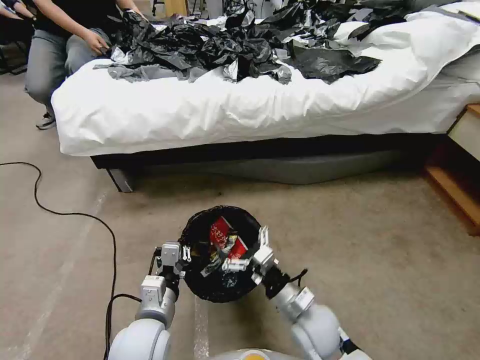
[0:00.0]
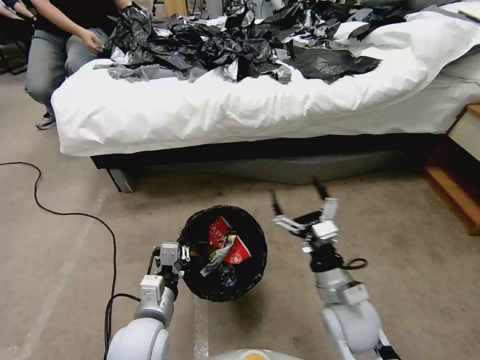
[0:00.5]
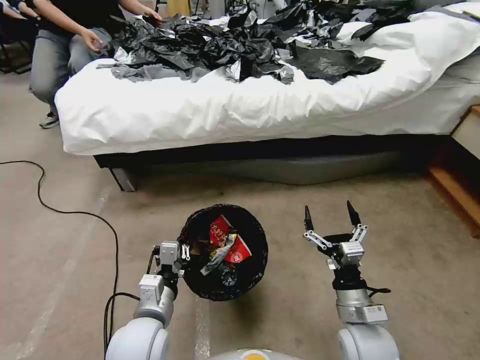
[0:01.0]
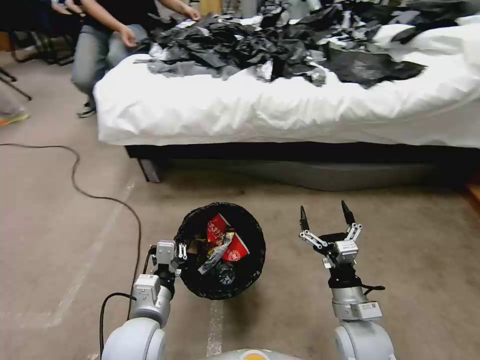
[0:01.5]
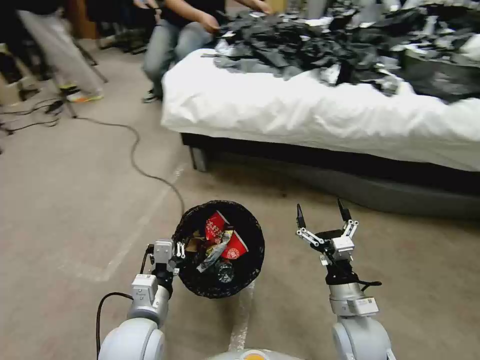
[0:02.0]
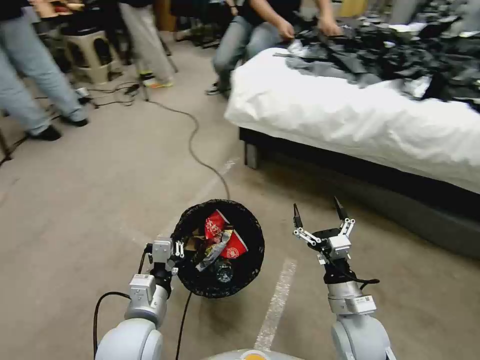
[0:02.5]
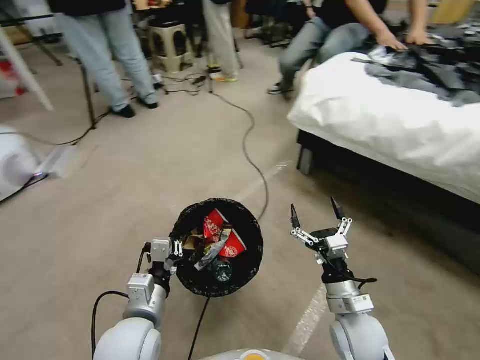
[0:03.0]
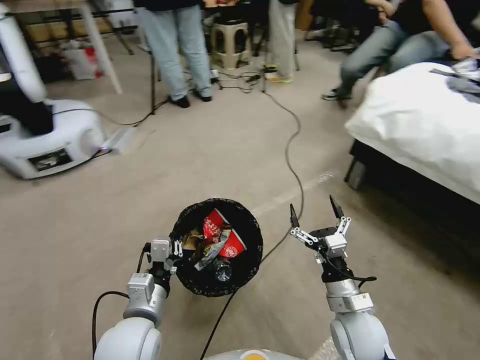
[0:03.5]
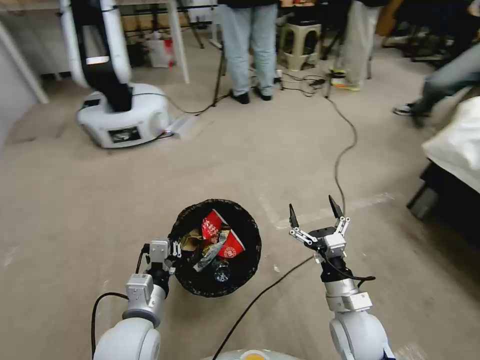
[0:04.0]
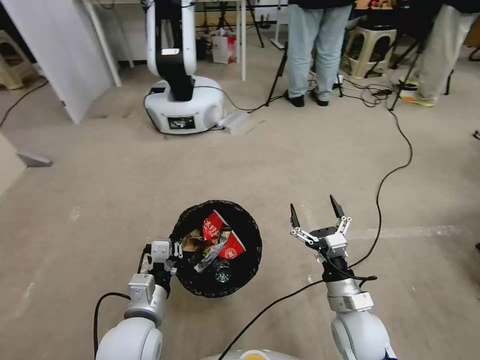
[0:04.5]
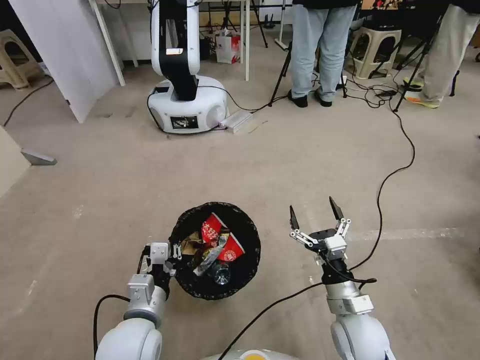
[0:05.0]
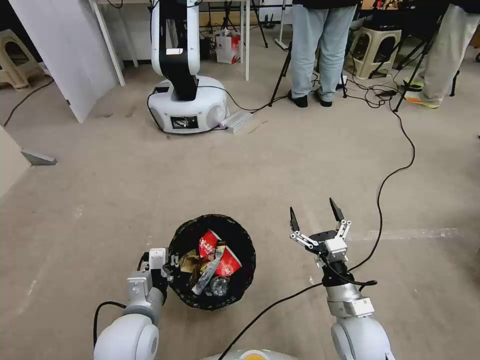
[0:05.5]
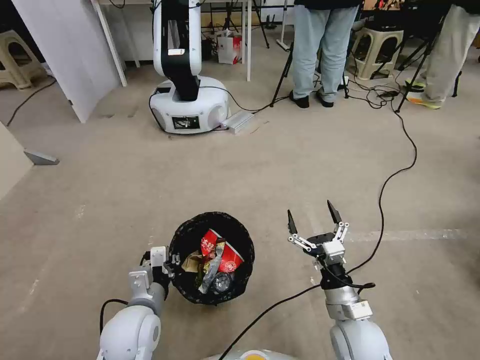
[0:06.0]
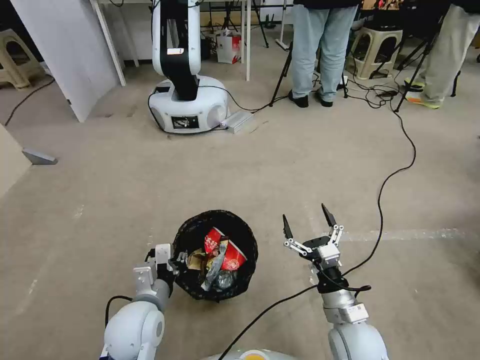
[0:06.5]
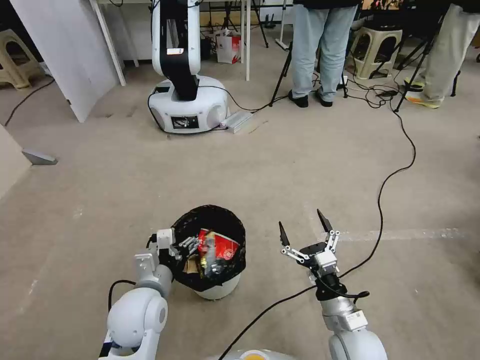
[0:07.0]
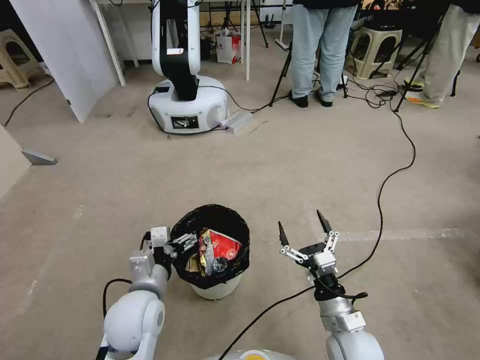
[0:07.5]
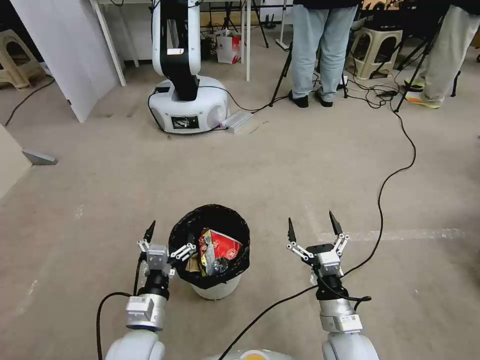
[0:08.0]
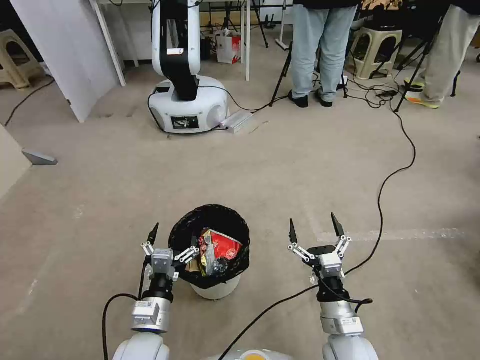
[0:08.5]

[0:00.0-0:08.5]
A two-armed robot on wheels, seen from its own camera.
Task of the whole recording: Pick up the trash bin, then pick up the garbage from the floor and place it into the trash bin.
0:00.0 to 0:02.0: The right gripper moves to the right, approximately 10 cm.
0:06.5 to 0:08.5: The left gripper moves roughly 5 cm, and opens up.

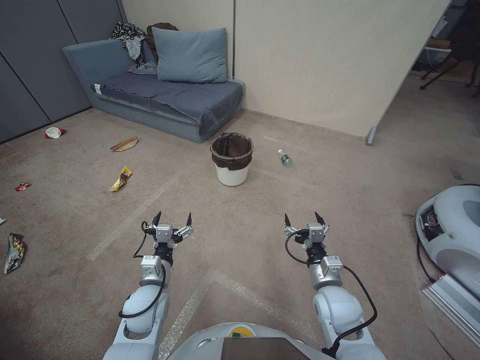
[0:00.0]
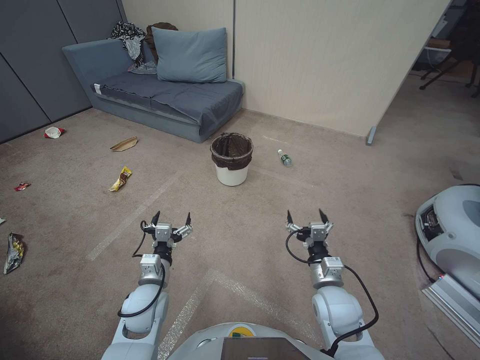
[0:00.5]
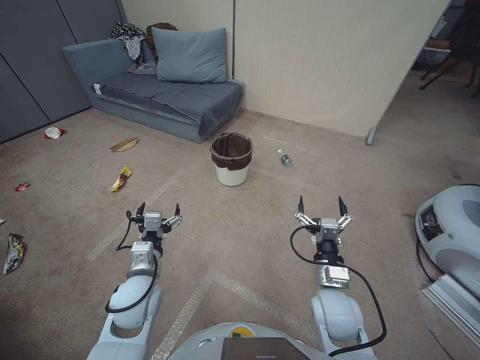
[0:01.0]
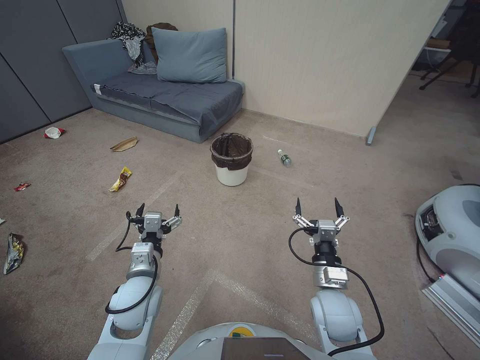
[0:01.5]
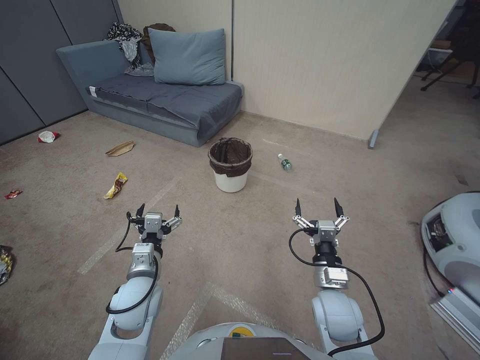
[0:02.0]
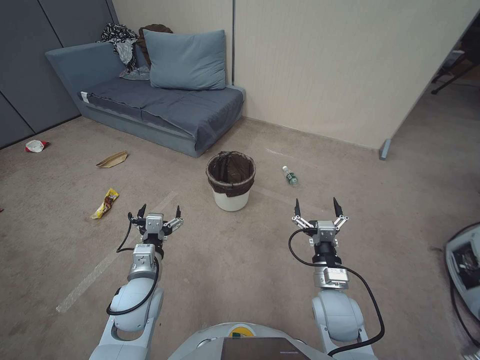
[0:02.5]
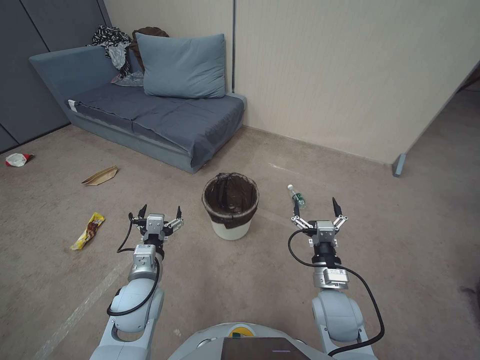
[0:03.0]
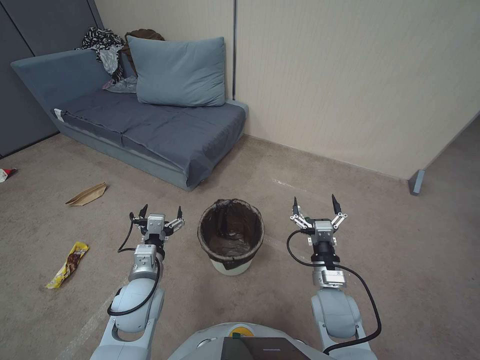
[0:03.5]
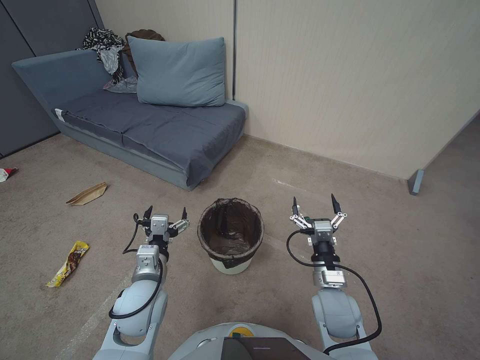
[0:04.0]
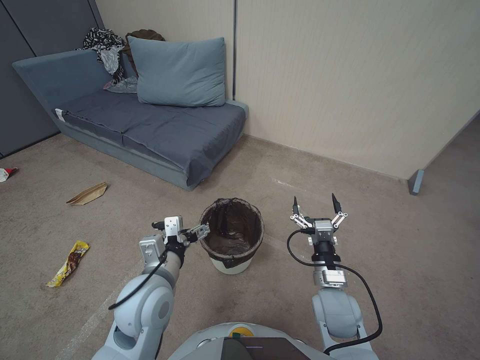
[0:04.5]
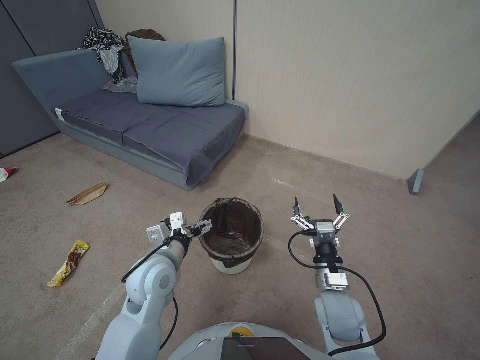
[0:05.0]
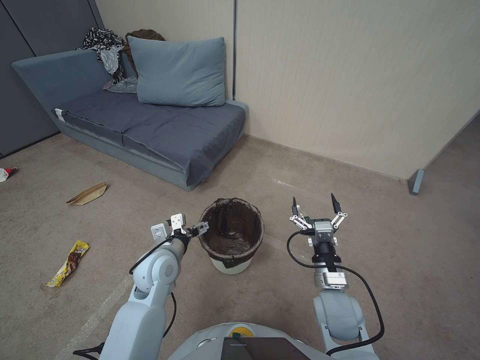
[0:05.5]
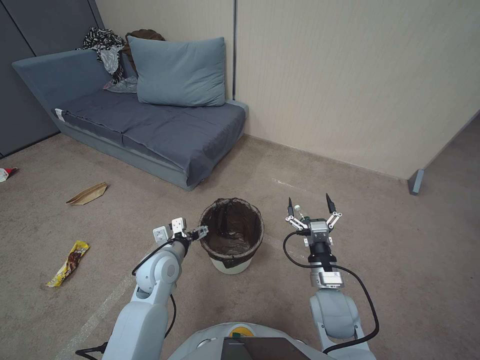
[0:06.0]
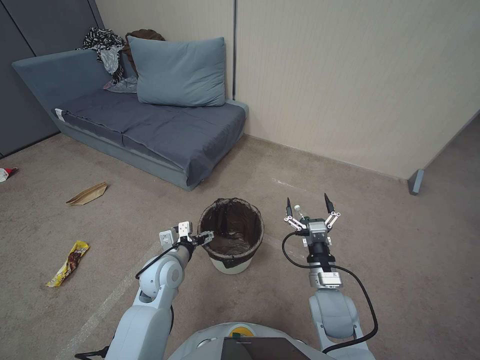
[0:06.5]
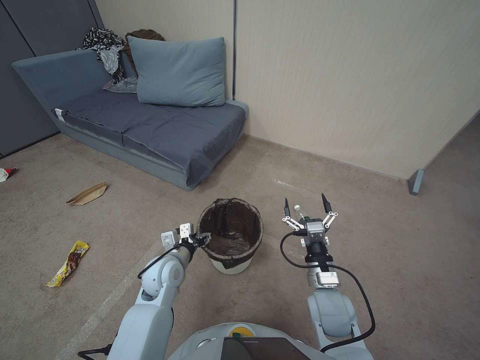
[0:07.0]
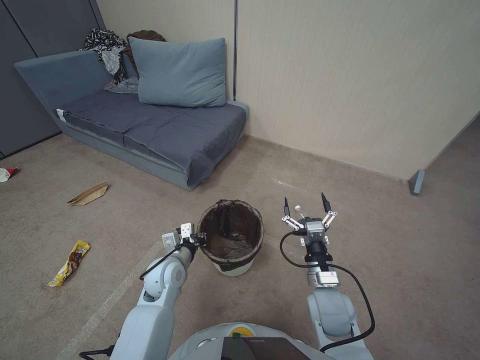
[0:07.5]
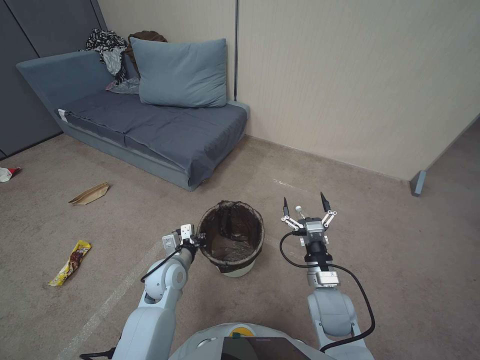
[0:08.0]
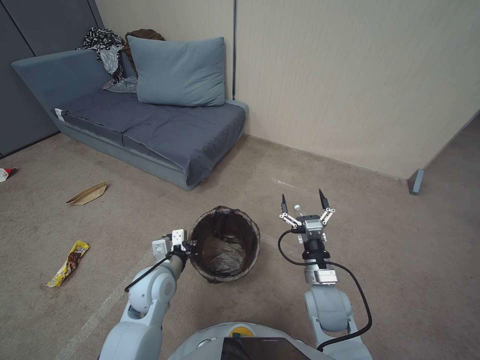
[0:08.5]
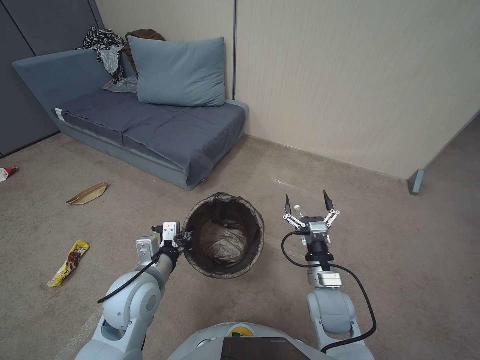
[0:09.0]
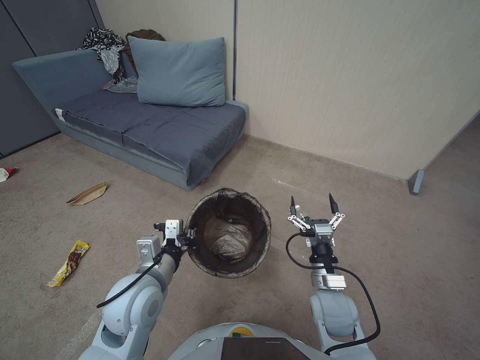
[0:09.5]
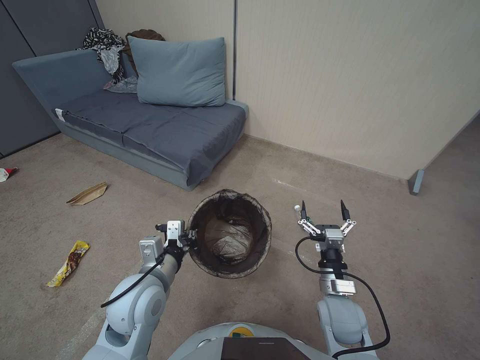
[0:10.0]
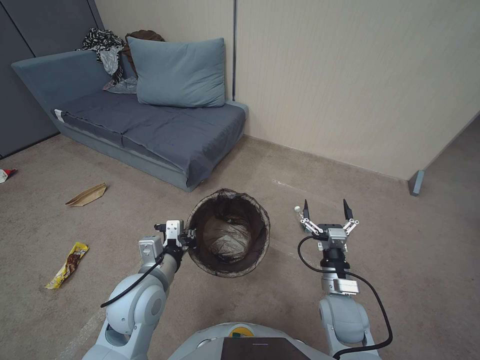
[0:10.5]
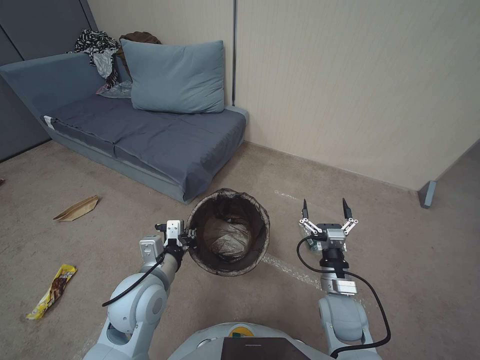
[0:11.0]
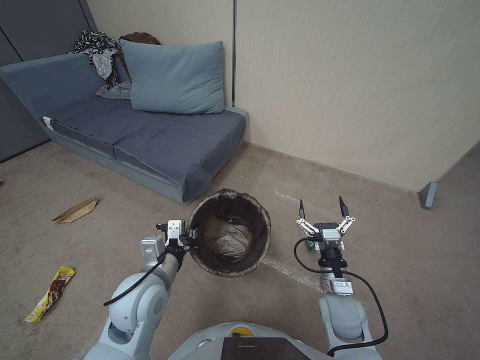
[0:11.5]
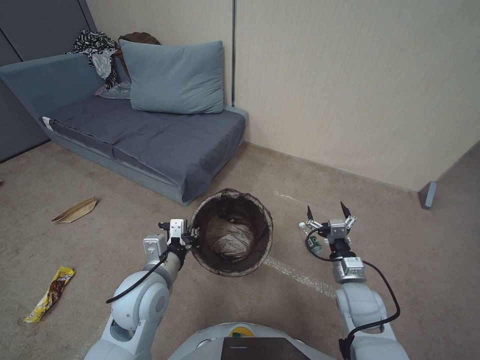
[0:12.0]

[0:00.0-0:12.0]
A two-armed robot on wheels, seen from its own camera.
Task of the whole recording: Pick up the trash bin, then pick up the garbage from the floor and place it into the trash bin.
0:04.0 to 0:06.0: The left gripper goes roughly 10 cm forward.
0:06.0 to 0:08.0: The left gripper closes up.
0:08.0 to 0:10.0: The left gripper shifts about 15 cm upward and backward.
0:10.0 to 0:12.0: The right gripper shifts roughly 5 cm to the right.

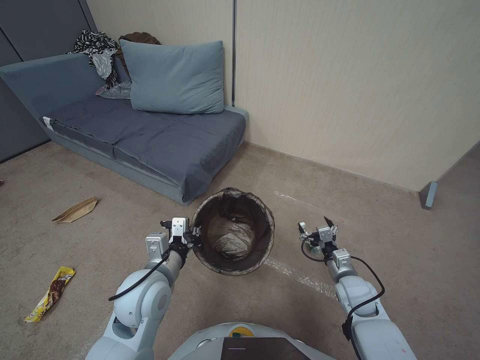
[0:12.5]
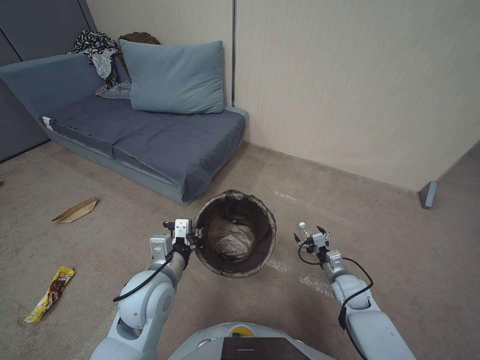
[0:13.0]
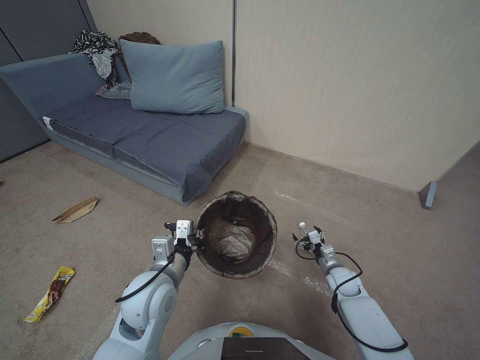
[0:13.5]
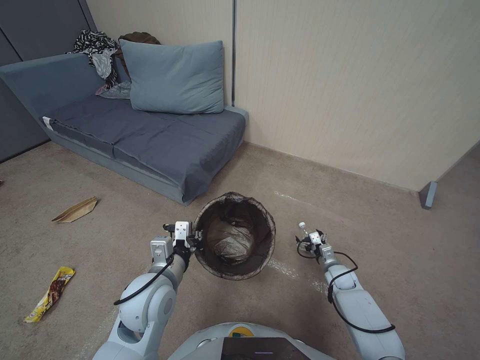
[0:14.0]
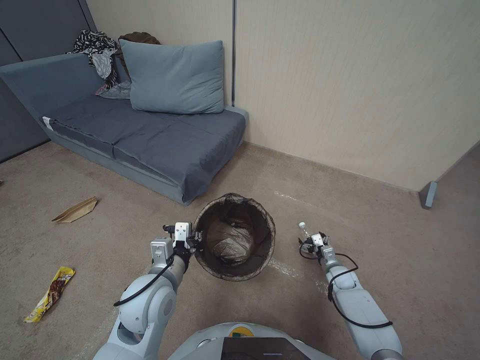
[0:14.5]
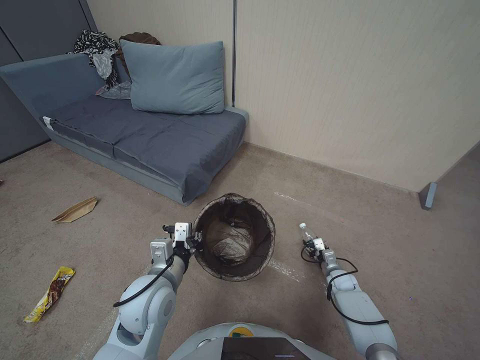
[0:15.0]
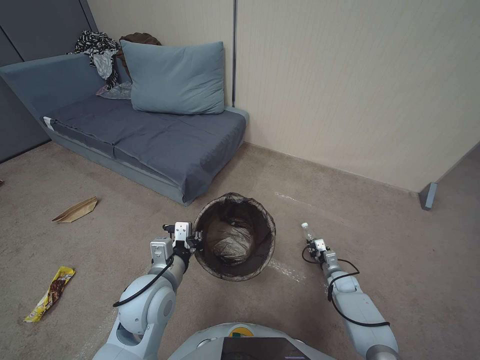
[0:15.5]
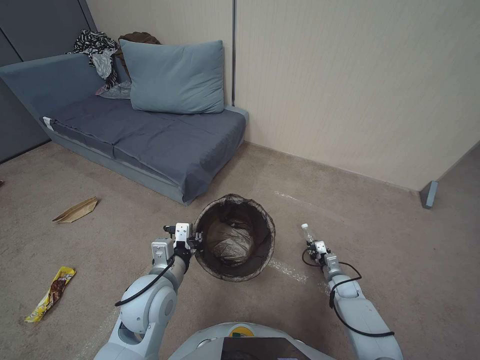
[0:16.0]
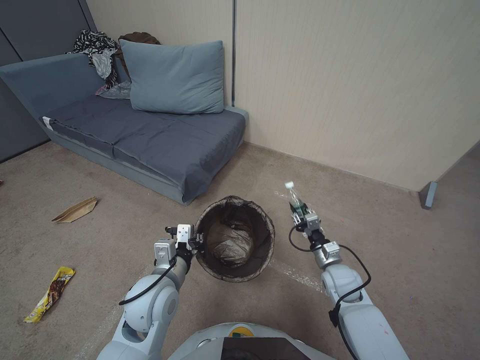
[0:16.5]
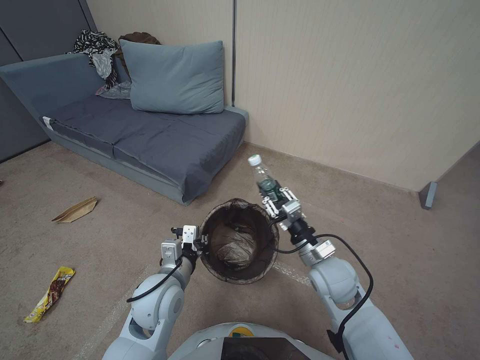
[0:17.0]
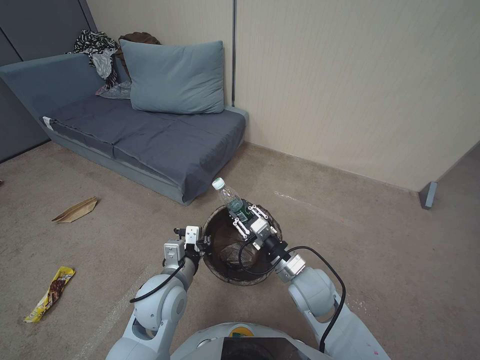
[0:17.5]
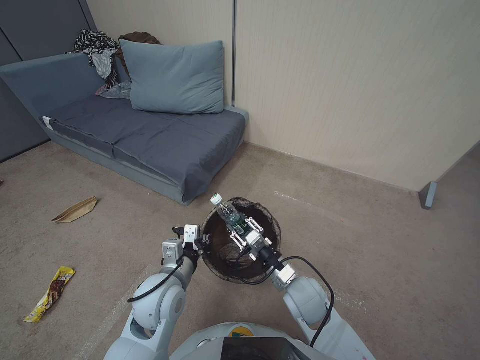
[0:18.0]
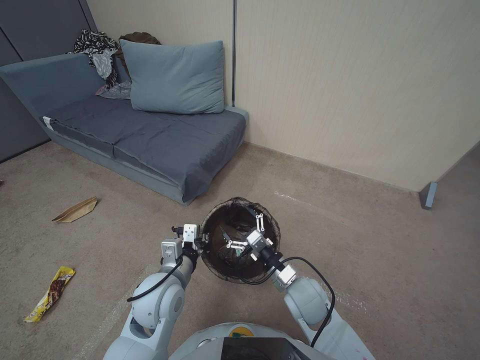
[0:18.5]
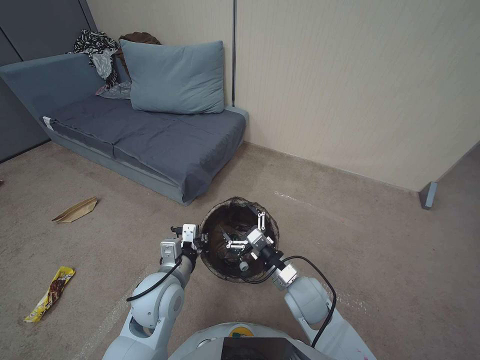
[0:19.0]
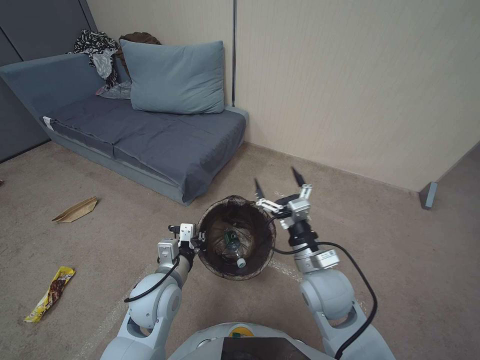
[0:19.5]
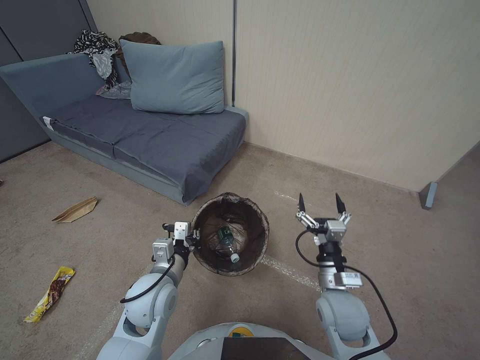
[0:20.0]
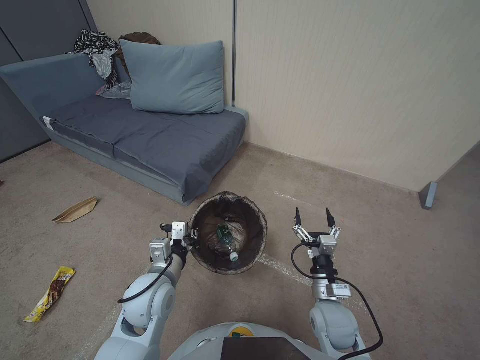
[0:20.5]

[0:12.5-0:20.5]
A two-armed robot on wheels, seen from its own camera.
Task of the whole recording: Pick up the trash bin, then pick up the garbage from the floor and place it into the trash bin.
0:12.5 to 0:14.5: The right gripper shifts about 20 cm downward and forward.
0:14.5 to 0:16.5: The right gripper is displaced upward and to the left by approximately 10 cm, and closes its fingers.
0:16.5 to 0:18.5: The right gripper moves to the left and upward, some 20 cm, and opens.
0:18.5 to 0:20.5: The right gripper goes roughly 5 cm to the right, and travels upward and back again, roughly 10 cm each way.
